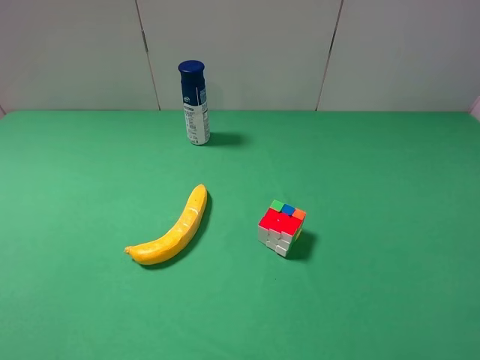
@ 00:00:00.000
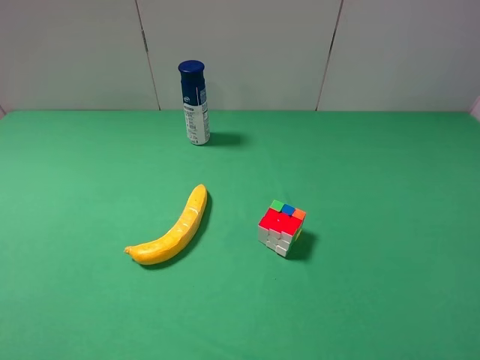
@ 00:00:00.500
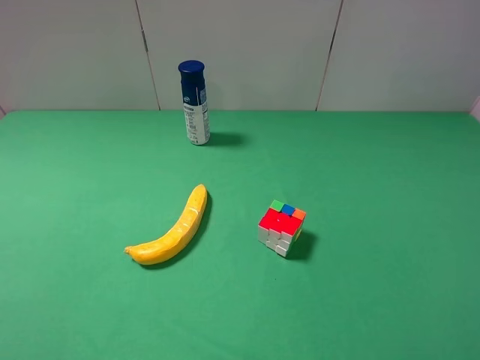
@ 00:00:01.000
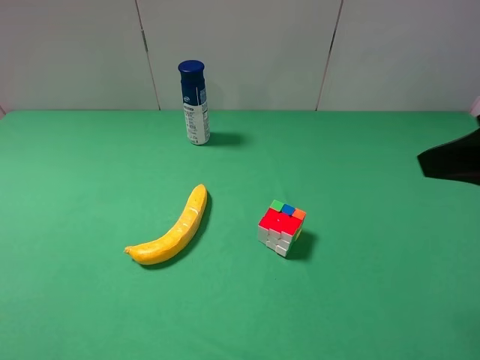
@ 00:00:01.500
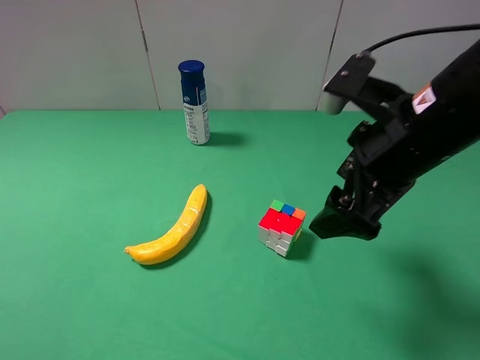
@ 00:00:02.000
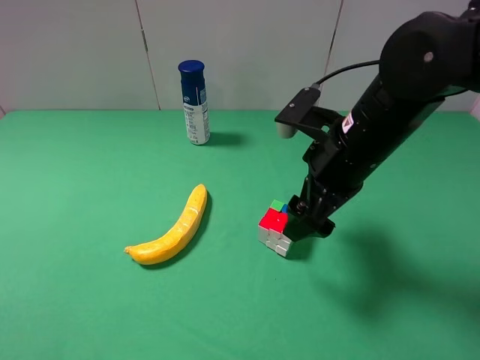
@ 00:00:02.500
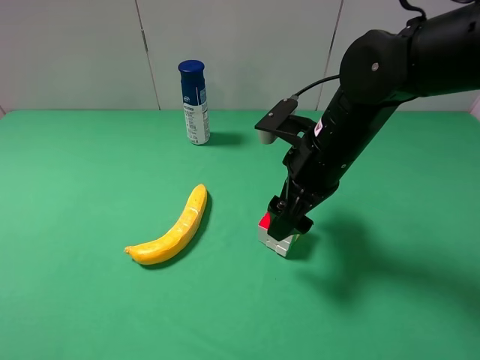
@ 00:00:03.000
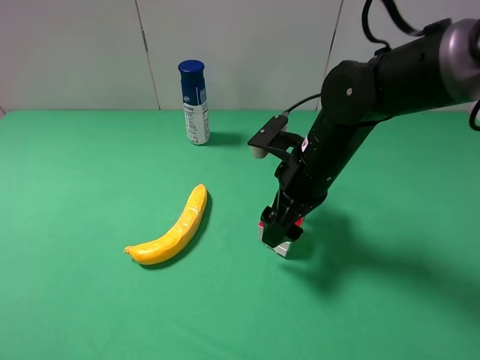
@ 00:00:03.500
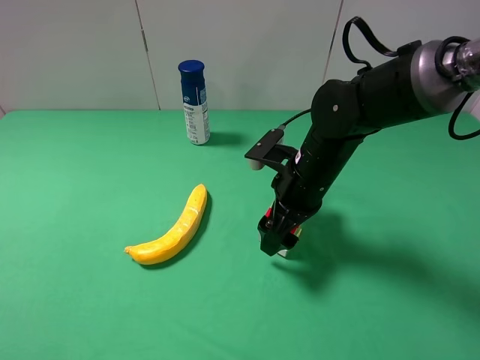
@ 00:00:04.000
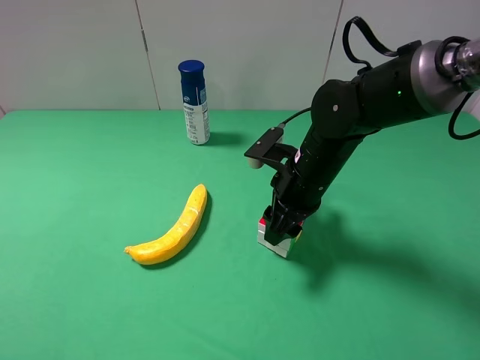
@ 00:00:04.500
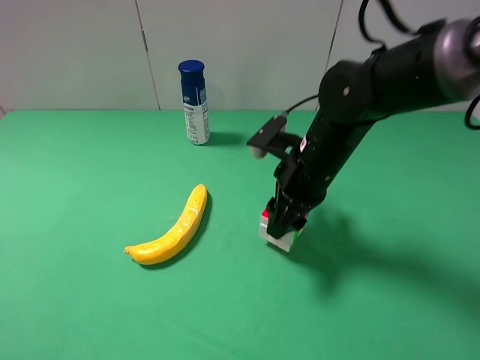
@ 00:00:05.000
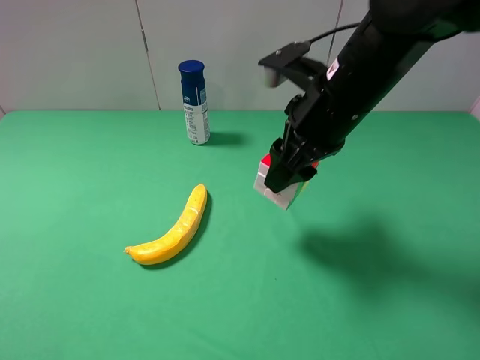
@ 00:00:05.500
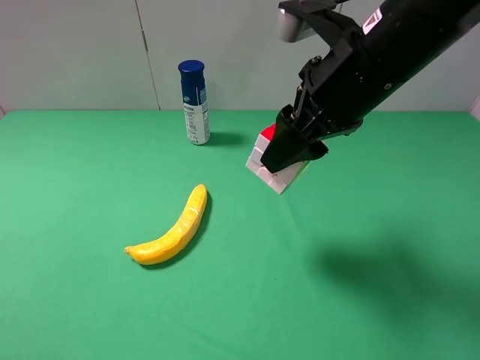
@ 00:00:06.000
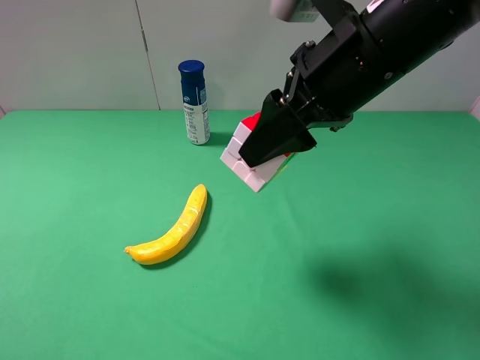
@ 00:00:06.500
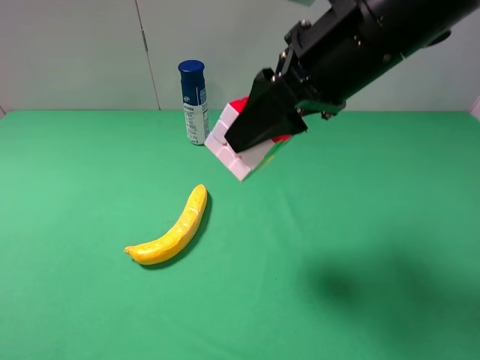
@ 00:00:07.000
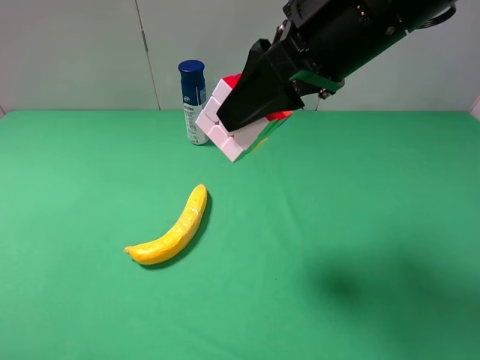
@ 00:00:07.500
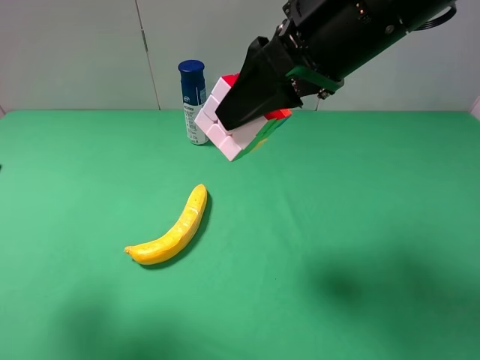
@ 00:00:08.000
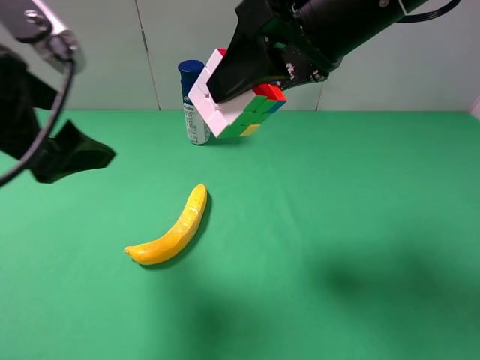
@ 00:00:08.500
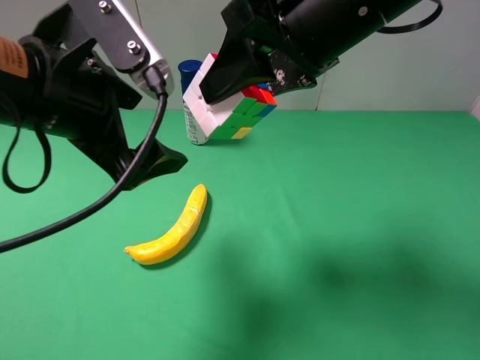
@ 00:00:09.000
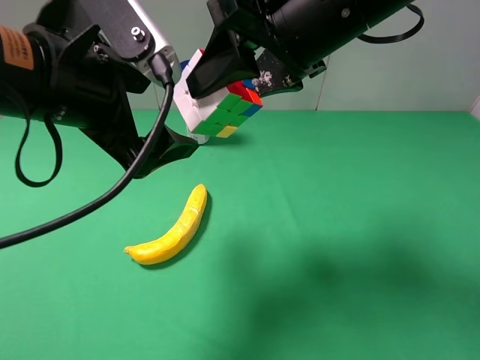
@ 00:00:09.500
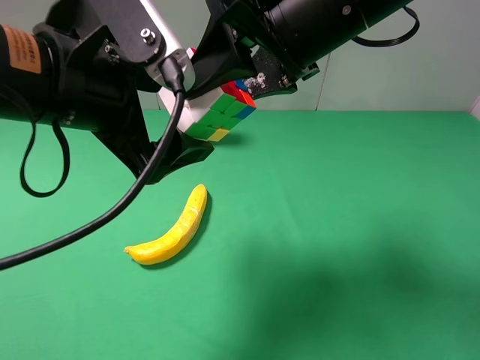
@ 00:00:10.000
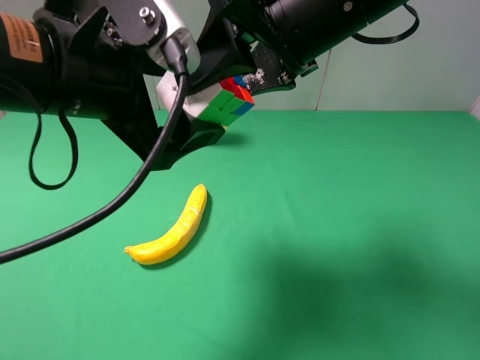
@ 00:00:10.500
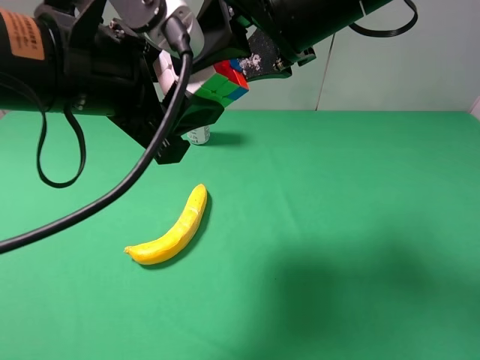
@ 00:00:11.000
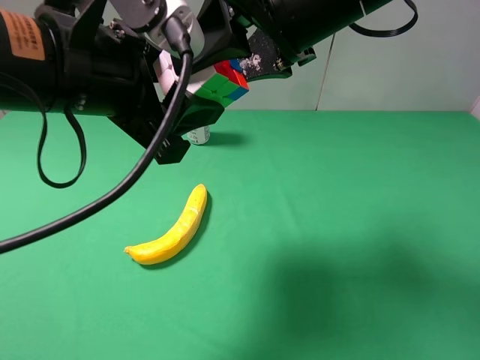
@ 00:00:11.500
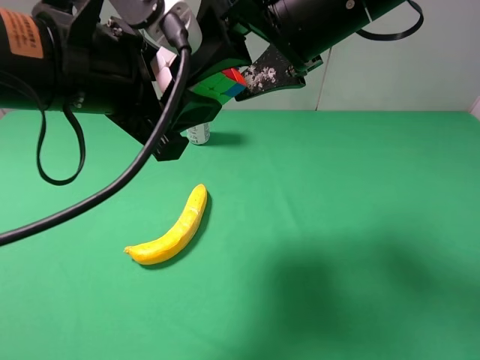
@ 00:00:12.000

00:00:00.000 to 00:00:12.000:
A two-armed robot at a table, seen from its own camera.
Task of the whole recording: use the right gripper to pick up the item and transfer it from the right gripper to the left gripper.
Step, 00:00:00.000 to 00:00:04.500: Use the right gripper to grab the Rubik's Cube on the right side of the table.
00:00:00.000 to 00:00:02.000: The right gripper is displaced forward and to the left by about 25 cm.
00:00:02.000 to 00:00:04.000: The right gripper is displaced downward, forward and to the left by about 15 cm.
00:00:04.000 to 00:00:06.000: The right gripper shifts approximately 15 cm upward, and closes up.
00:00:06.000 to 00:00:08.000: The left gripper heads forward, covering roughly 15 cm.
00:00:08.000 to 00:00:10.000: The left gripper heads to the right, covering about 15 cm.
00:00:10.000 to 00:00:12.000: The left gripper closes; the right gripper opens its fingers.

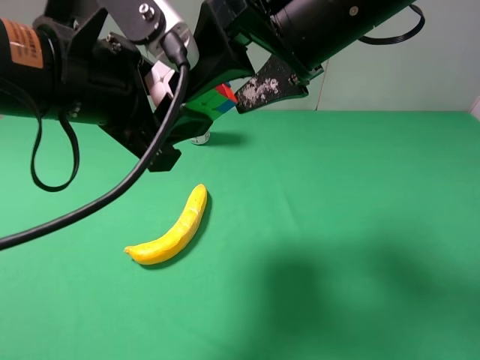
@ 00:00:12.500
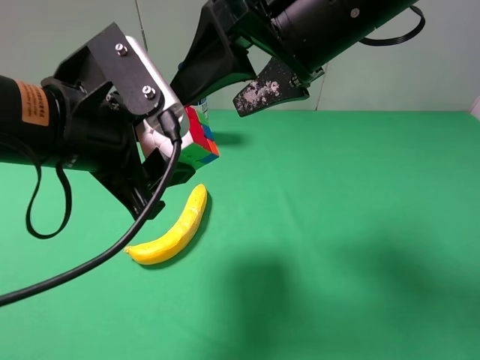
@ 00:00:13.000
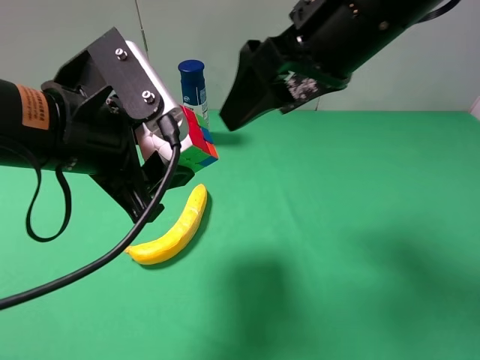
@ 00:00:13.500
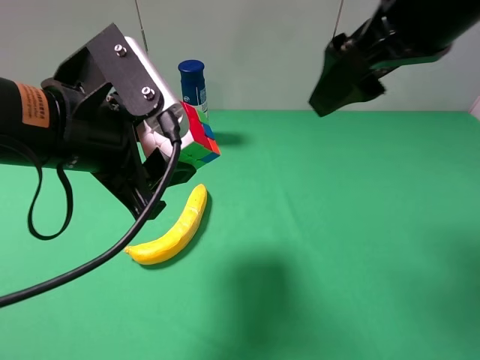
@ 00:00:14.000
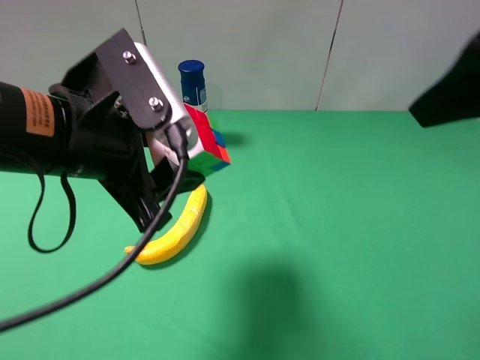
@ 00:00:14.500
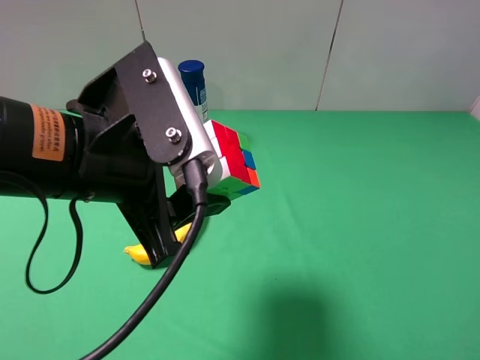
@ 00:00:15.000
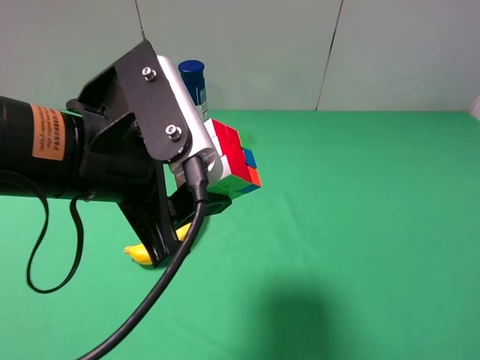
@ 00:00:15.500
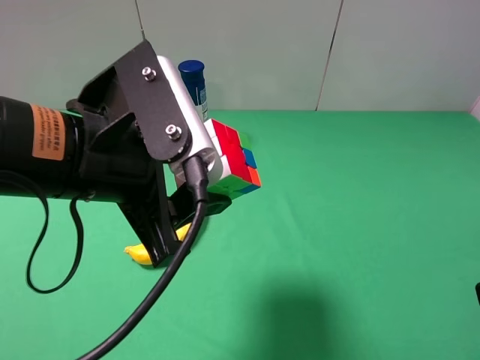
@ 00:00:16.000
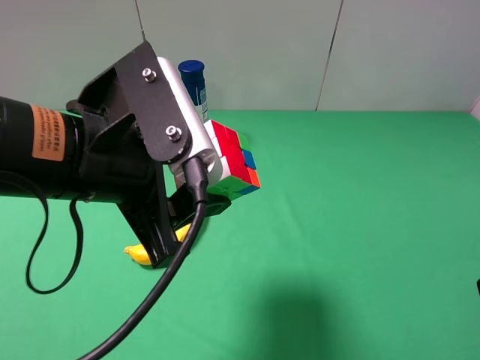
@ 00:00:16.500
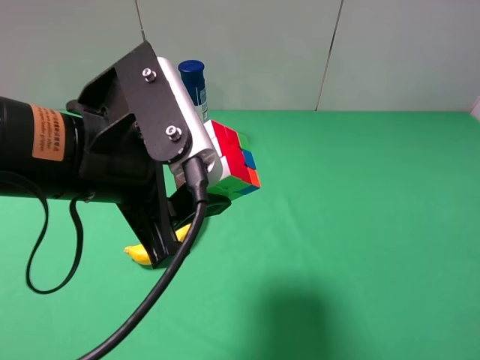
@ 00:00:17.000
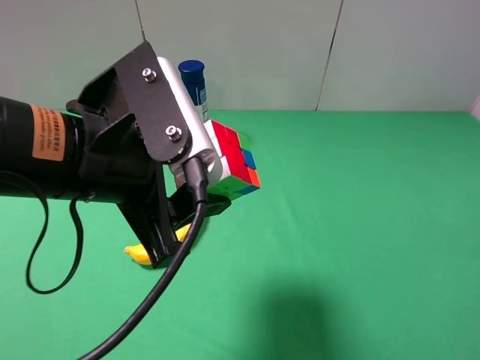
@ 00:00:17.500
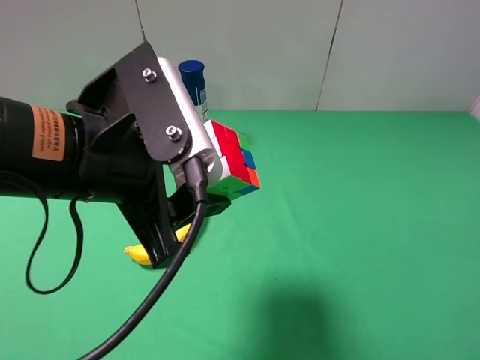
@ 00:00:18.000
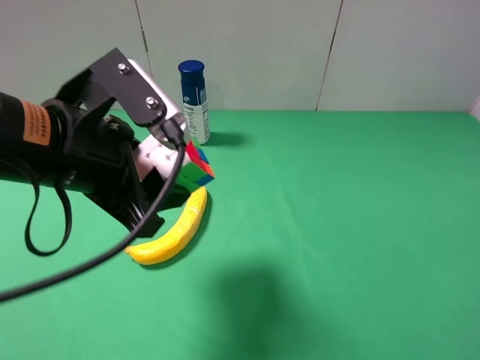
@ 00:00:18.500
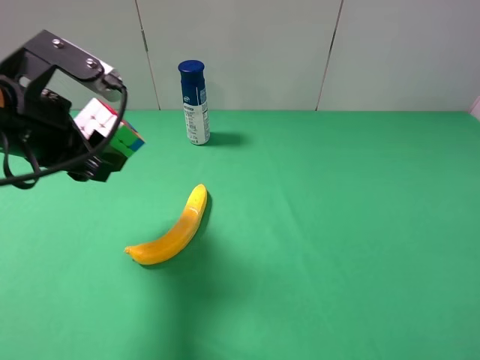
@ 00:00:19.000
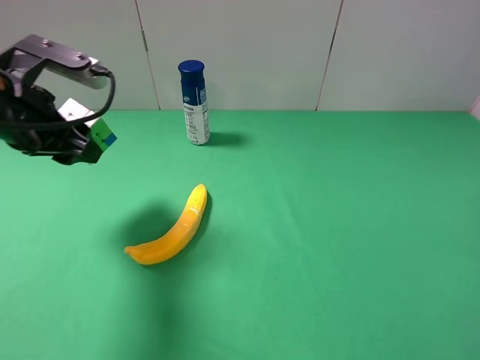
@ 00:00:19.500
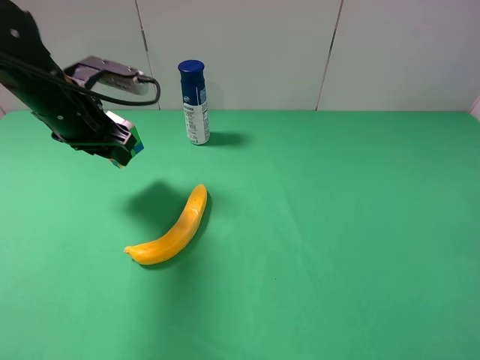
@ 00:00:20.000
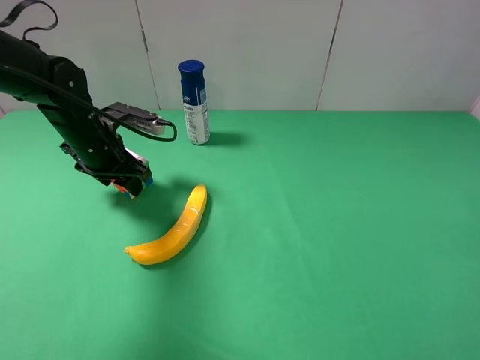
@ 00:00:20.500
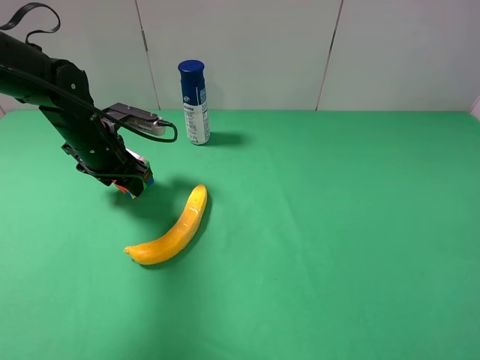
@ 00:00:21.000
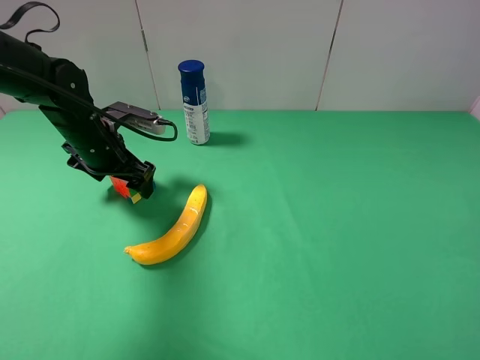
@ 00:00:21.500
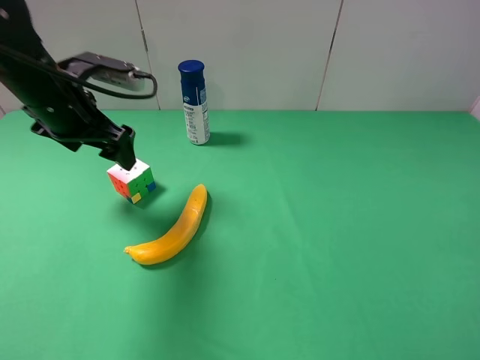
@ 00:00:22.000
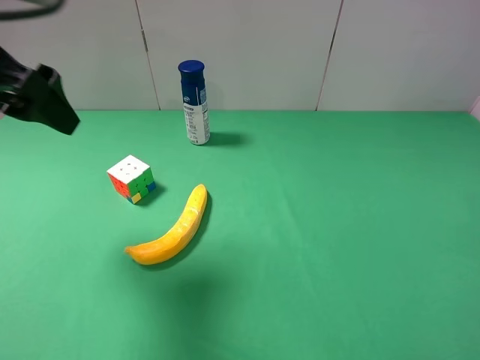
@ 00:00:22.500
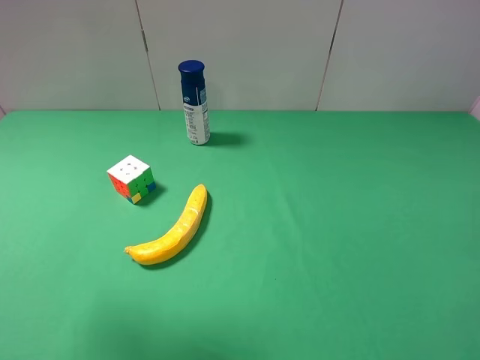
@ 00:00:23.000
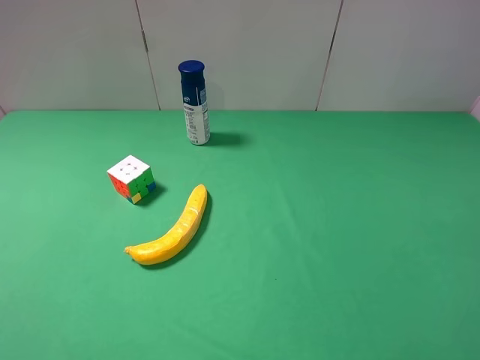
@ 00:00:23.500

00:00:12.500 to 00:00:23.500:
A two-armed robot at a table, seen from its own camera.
Task of the whole recording: use the right gripper to pick up the item and transfer it from the right gripper to the left gripper.
Step, 00:00:13.000 to 00:00:21.000: The left gripper places Rubik's Cube on the left side of the table.
00:00:12.500 to 00:00:14.500: The right gripper is displaced to the right and backward by some 15 cm.
00:00:14.500 to 00:00:16.000: The right gripper moves downward, backward and to the right, roughly 20 cm.
00:00:18.000 to 00:00:20.000: The left gripper goes some 25 cm forward, to the left and downward.
00:00:20.000 to 00:00:21.500: The left gripper heads downward, covering roughly 5 cm, and opens up.
00:00:21.500 to 00:00:23.500: The left gripper moves backward and upward, roughly 40 cm.

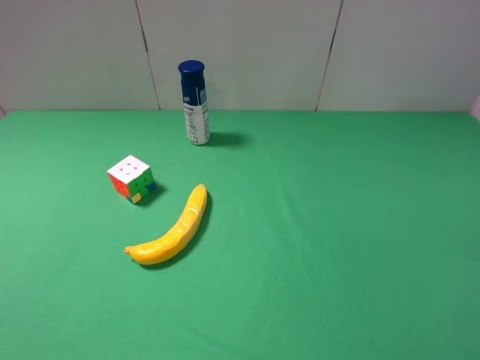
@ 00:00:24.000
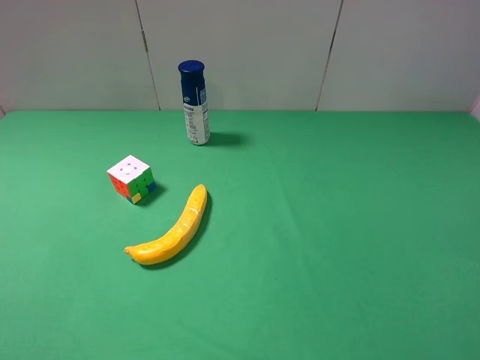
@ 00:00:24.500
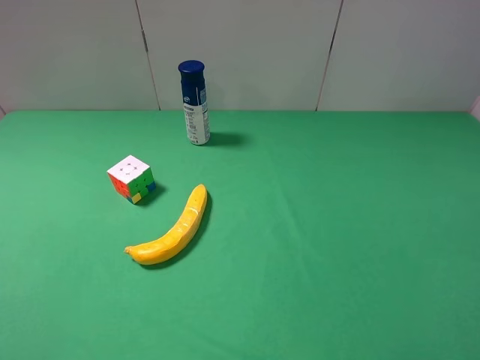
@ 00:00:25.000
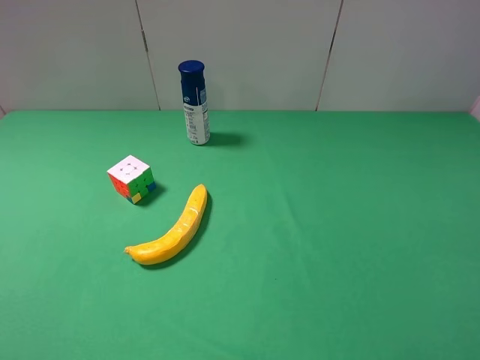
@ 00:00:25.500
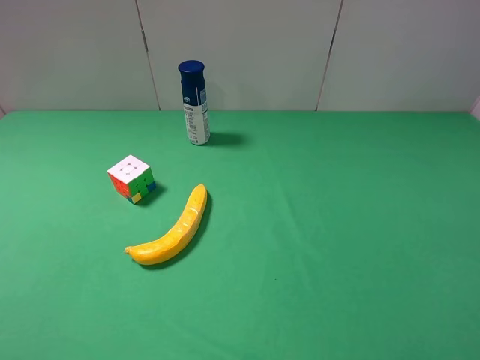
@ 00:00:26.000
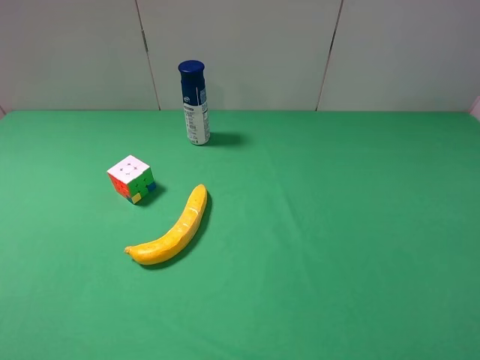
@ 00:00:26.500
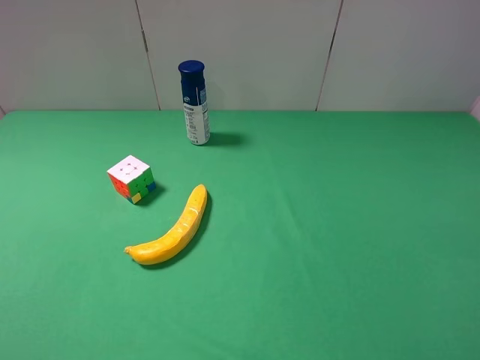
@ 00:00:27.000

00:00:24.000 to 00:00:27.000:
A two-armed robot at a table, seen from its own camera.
Task of the whole recording: use the right gripper to pick up the item and transfer it from the right gripper to the left gripper.
00:00:25.500 to 00:00:27.000: Both grippers stay about where they are.
